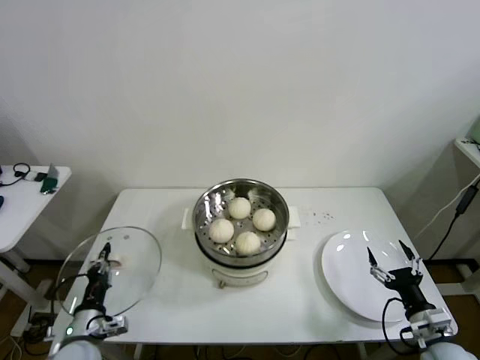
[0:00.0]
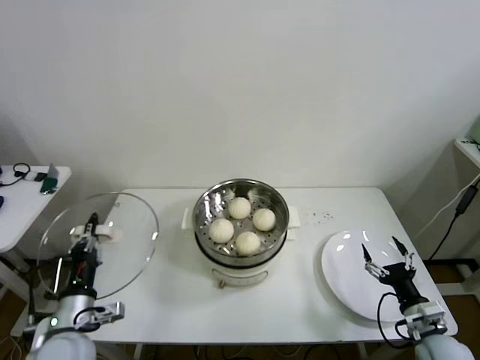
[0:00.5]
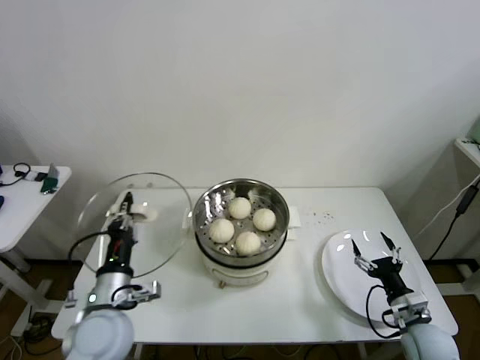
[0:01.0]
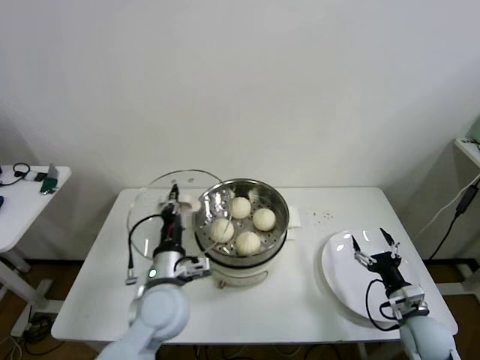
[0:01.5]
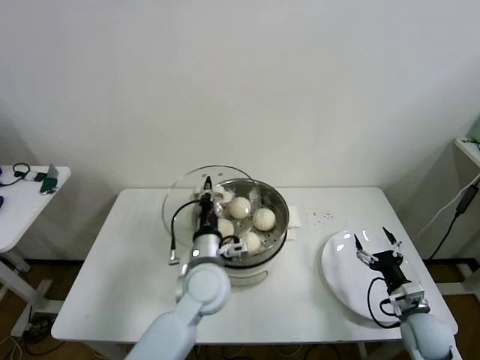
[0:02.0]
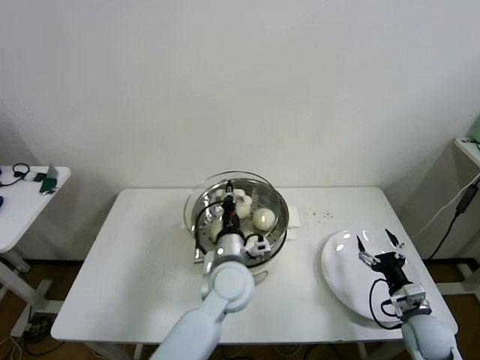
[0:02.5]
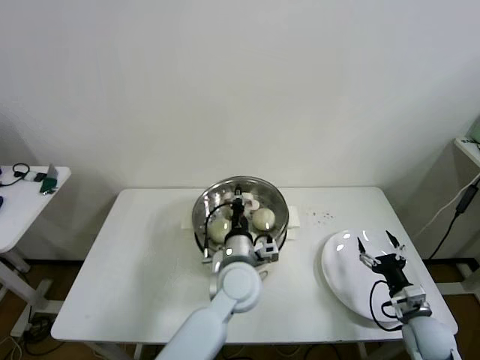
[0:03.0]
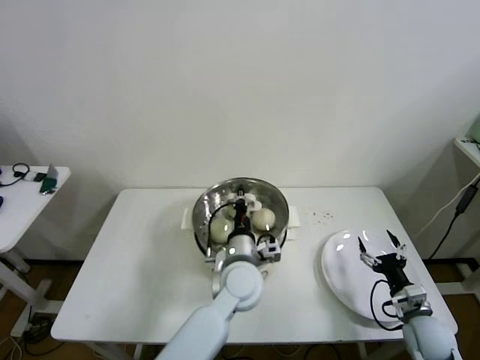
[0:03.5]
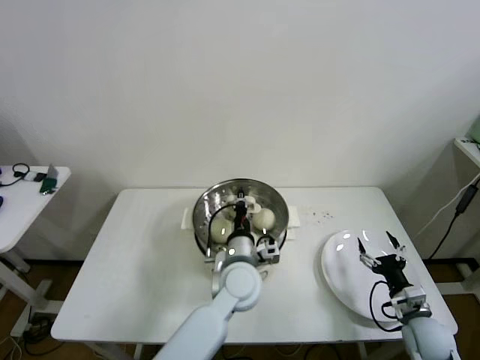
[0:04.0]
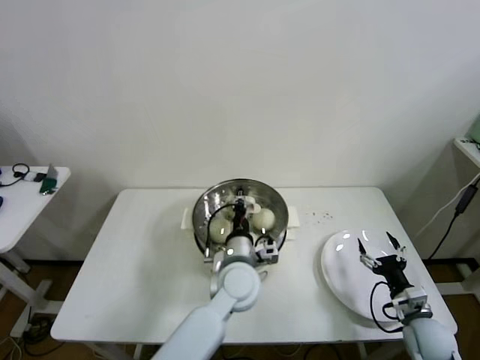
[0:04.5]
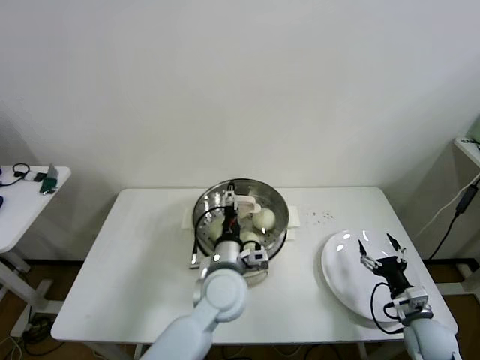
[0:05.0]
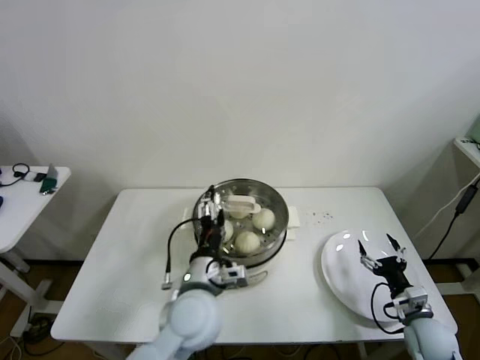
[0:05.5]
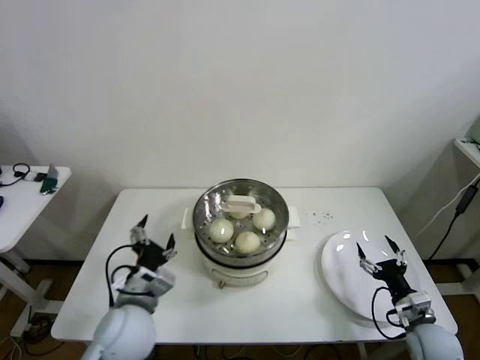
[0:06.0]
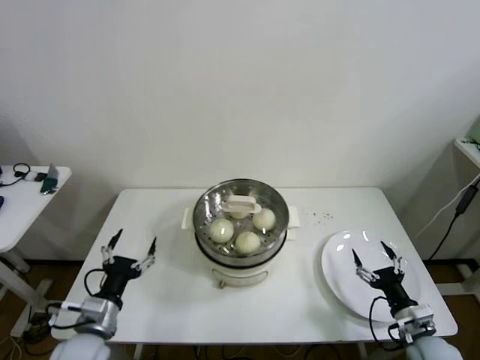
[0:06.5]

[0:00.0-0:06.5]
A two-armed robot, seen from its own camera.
Step, 0:00.0 to 0:04.5: Place the pot lid on the steamer with left gripper.
0:00.0 to 0:02.0: The left gripper heads to the right, upward and forward, covering roughly 30 cm; the right gripper heads forward, covering about 5 cm.
0:02.0 to 0:04.5: The left gripper heads to the right, covering approximately 10 cm.
0:04.5 to 0:06.5: The left gripper is displaced to the left and backward by roughly 30 cm, and opens.
